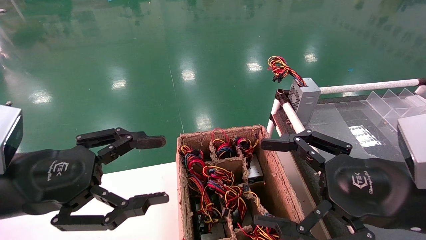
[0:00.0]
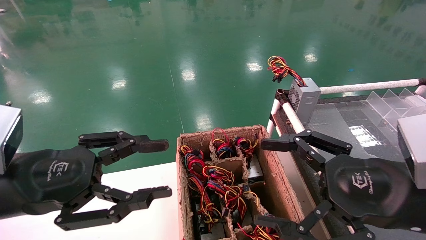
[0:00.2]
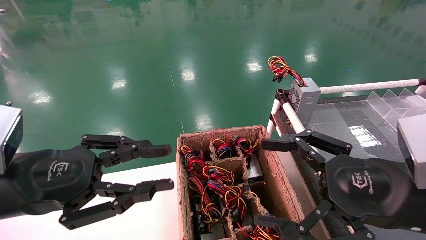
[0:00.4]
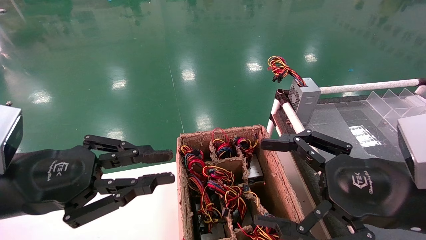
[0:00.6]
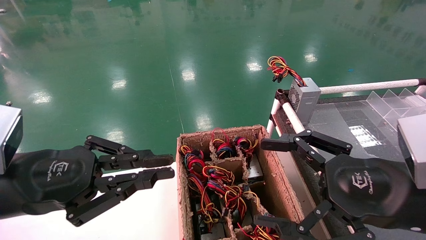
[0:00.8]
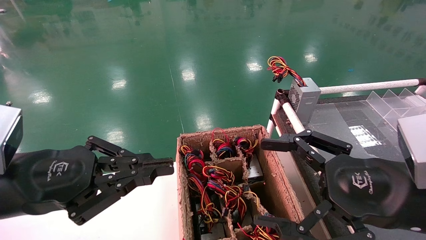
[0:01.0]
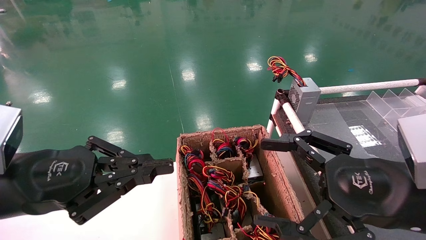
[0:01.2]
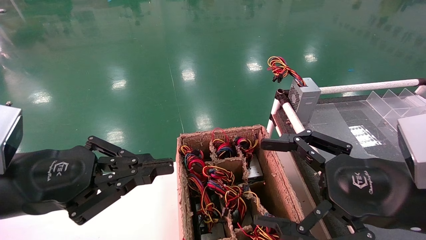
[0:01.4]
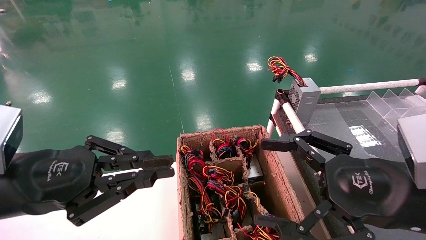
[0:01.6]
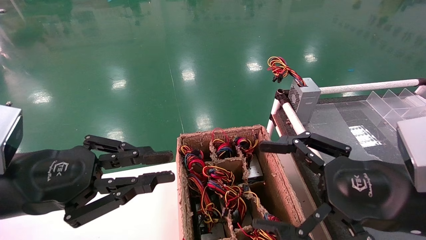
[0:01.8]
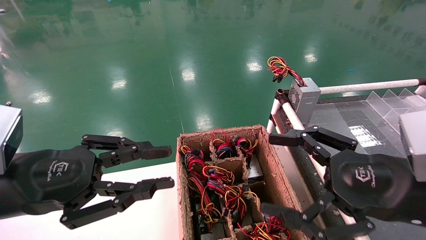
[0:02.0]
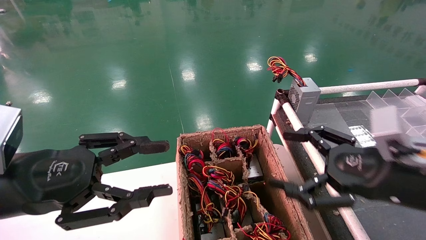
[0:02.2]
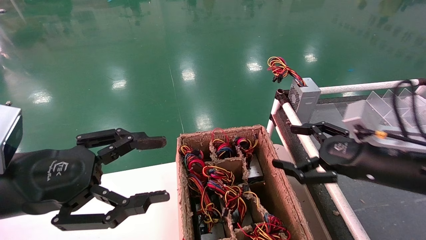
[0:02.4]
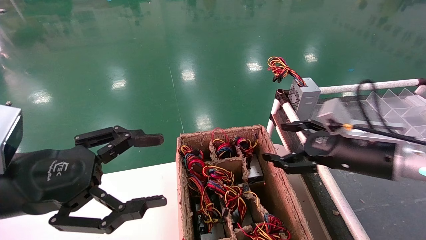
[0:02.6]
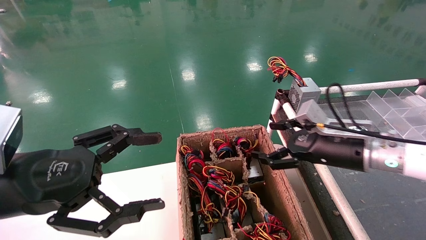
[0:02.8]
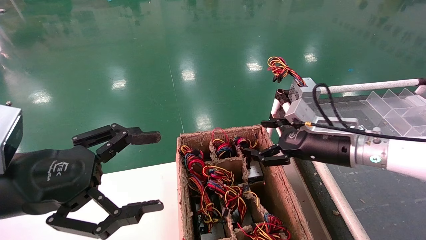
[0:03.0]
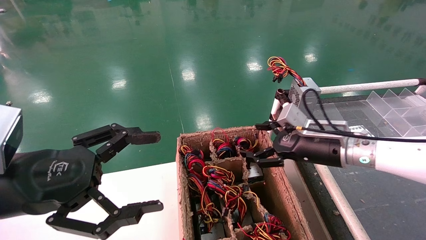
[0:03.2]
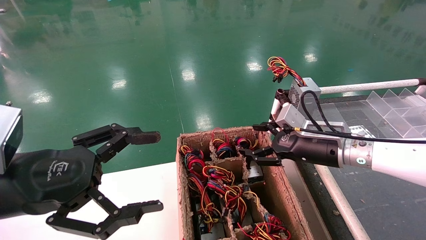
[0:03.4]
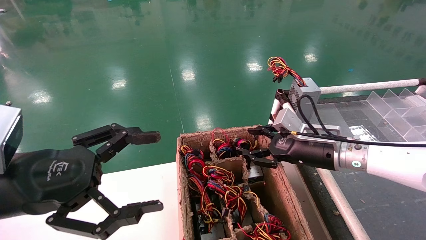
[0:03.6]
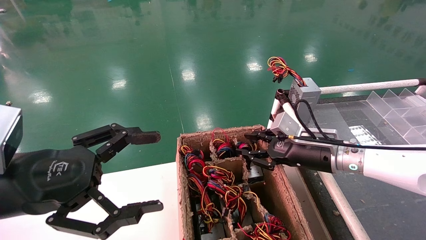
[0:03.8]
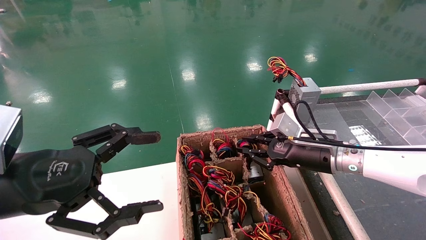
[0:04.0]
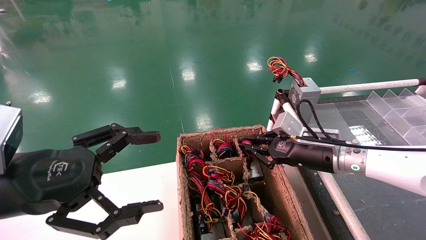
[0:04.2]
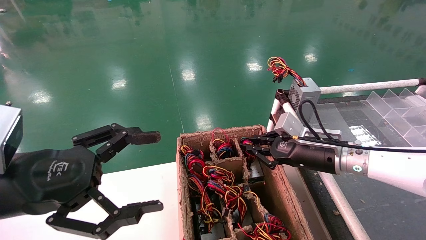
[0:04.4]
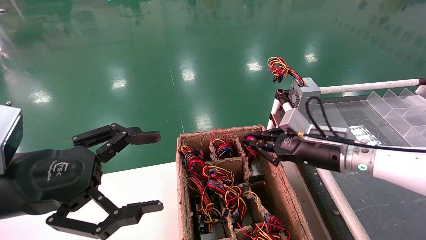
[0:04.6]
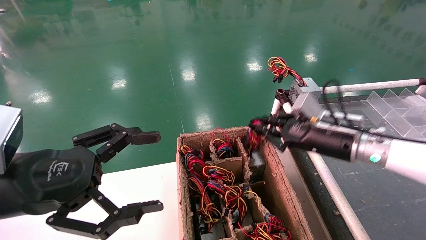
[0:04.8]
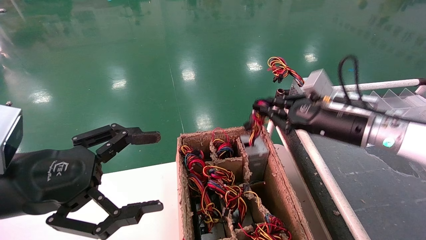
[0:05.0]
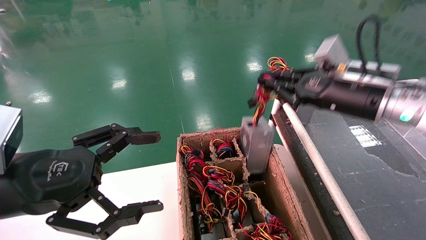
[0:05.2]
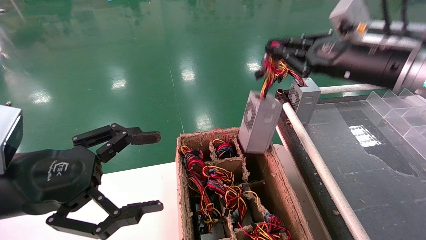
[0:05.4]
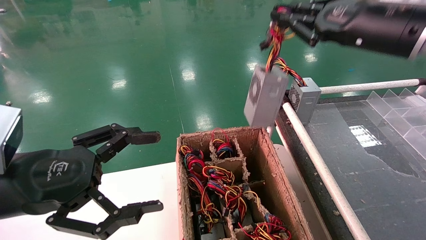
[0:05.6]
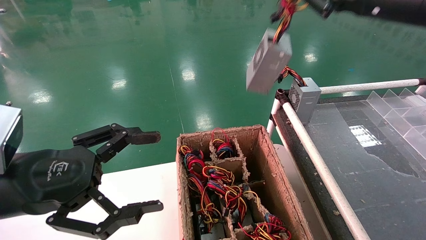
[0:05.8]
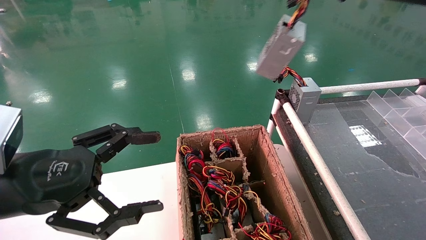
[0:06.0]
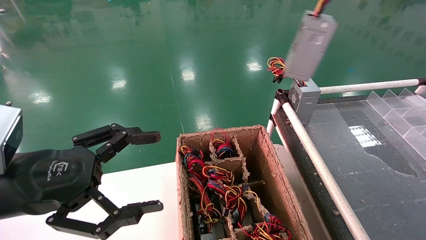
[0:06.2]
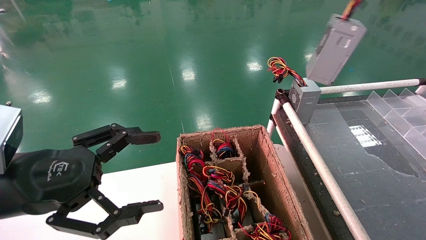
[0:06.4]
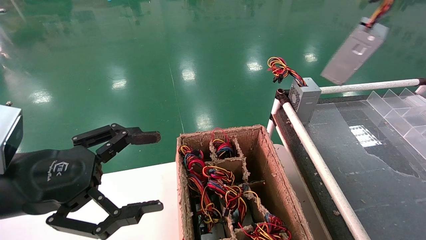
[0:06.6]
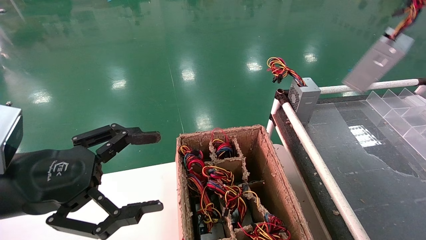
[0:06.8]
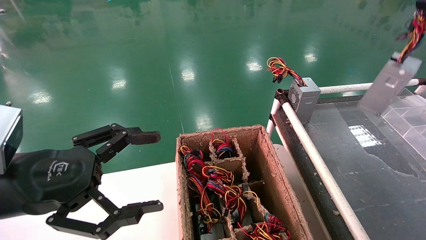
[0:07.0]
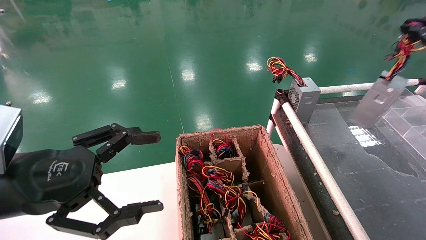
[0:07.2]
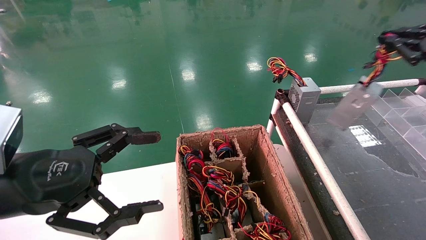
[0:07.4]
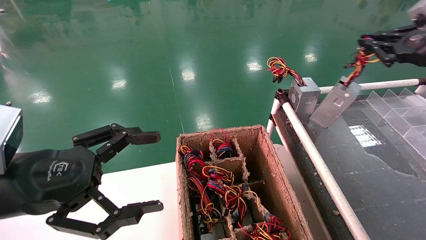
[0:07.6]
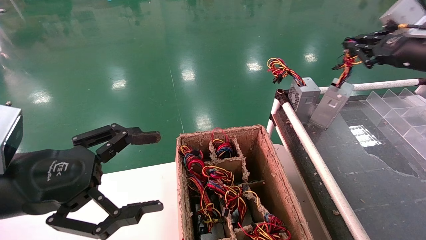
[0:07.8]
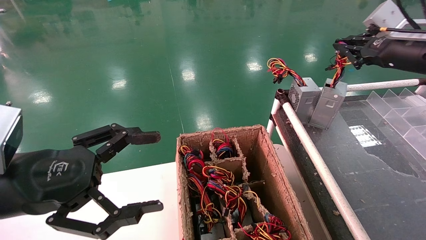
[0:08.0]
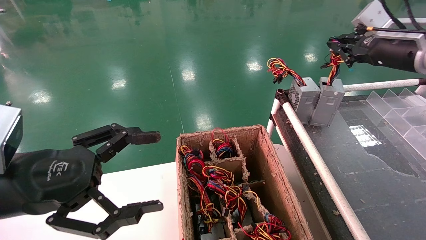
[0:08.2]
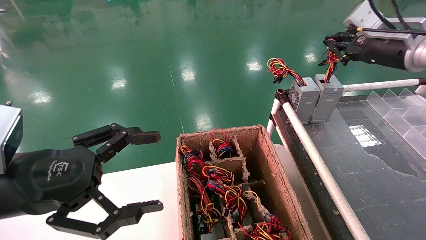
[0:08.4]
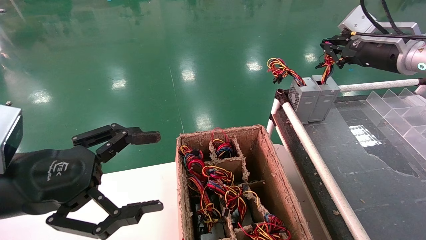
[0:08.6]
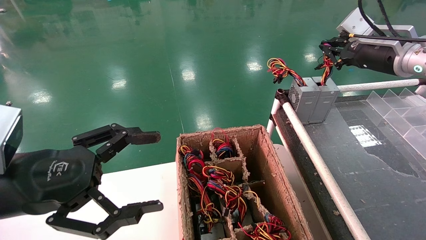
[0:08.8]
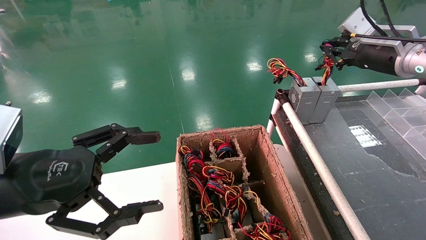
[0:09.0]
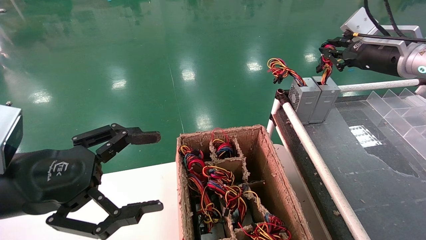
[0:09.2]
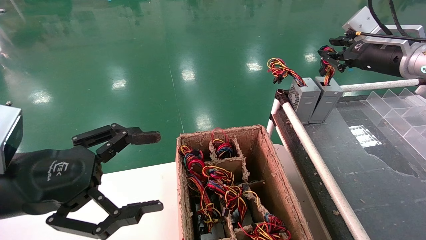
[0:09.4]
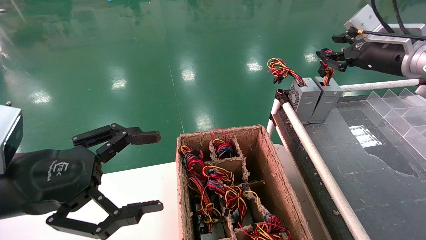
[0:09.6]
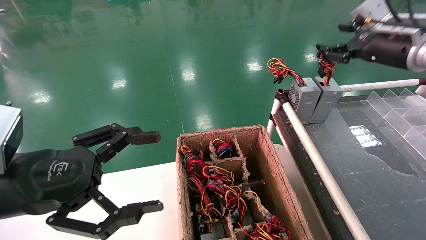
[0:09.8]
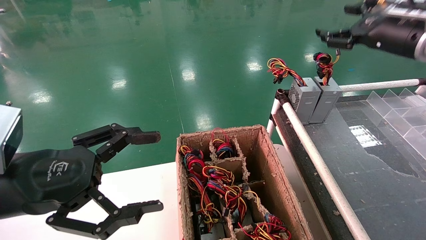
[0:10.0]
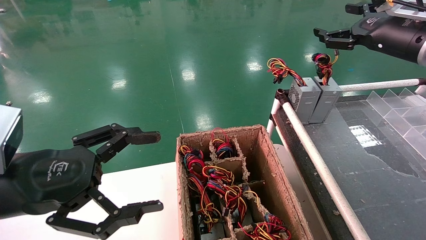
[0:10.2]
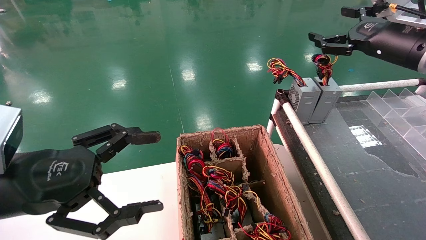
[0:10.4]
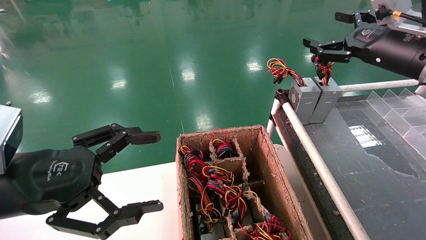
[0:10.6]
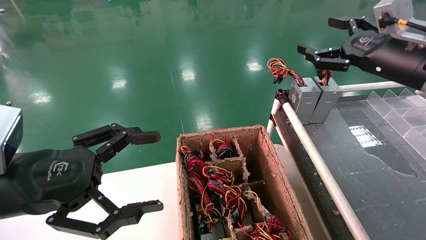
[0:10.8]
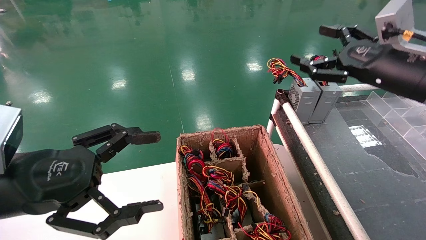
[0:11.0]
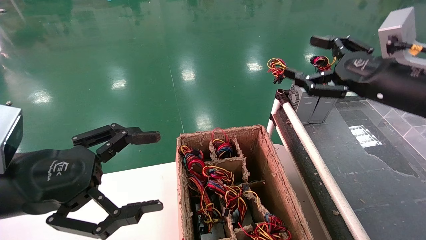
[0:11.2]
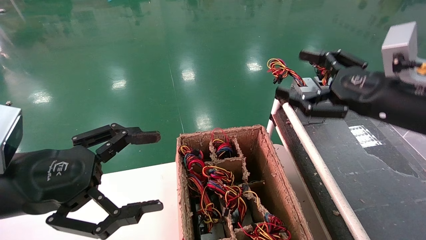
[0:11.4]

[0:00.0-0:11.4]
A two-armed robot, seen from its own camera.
Step, 0:00.4 to 0:04.2: Grab and lift the power supply from the large box.
Step, 0:04.4 to 0:09.2: Place the power supply on the operating table.
0:00.0 to 0:01.4: The left gripper closes.
0:01.4 to 0:02.8: The left gripper opens up; the right gripper goes approximately 15 cm forward.
0:02.8 to 0:04.2: The right gripper moves some 5 cm, and closes up.
0:04.2 to 0:05.6: The right gripper heads upward, covering about 25 cm.
0:05.6 to 0:07.2: The right gripper shifts approximately 20 cm to the right.
0:07.2 to 0:08.6: The right gripper moves to the left and forward, roughly 15 cm.
0:08.6 to 0:10.0: The right gripper opens up.
0:10.0 to 0:11.4: The right gripper heads backward, downward and to the left, covering roughly 15 cm, and opens up.
